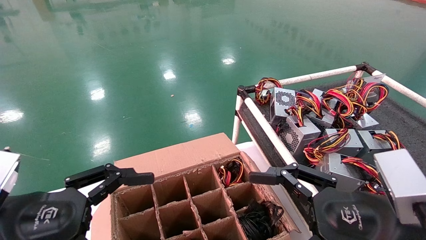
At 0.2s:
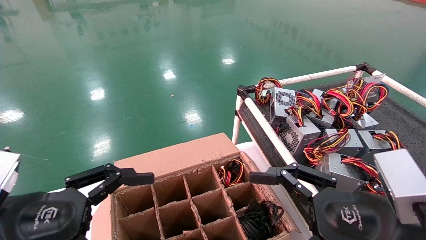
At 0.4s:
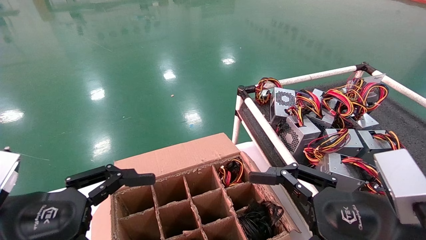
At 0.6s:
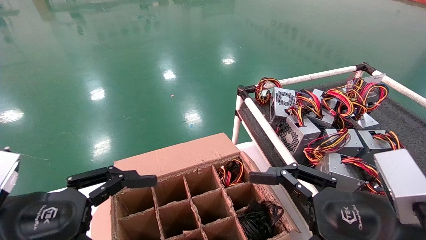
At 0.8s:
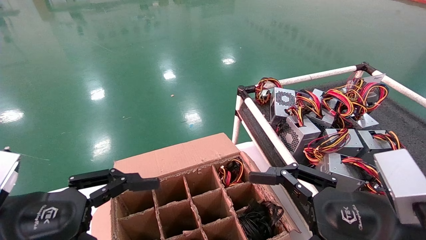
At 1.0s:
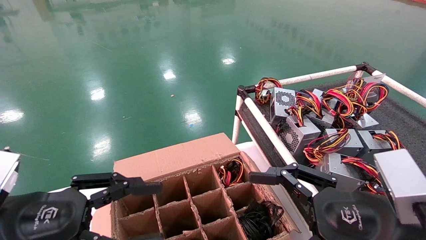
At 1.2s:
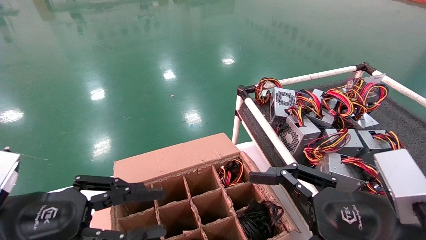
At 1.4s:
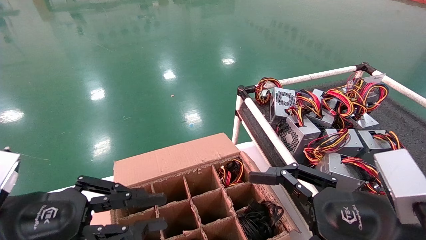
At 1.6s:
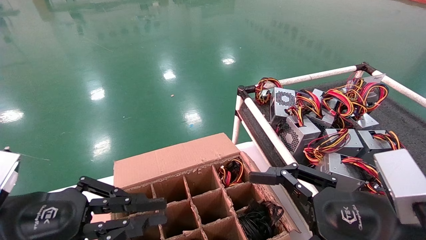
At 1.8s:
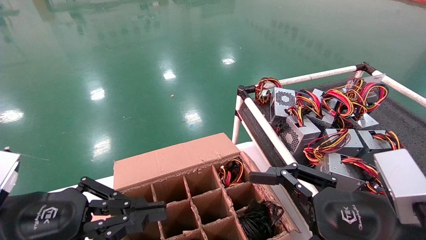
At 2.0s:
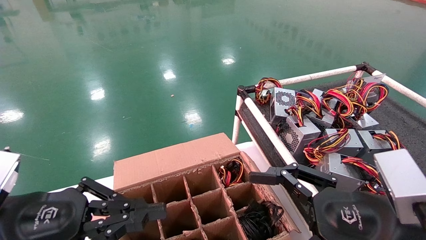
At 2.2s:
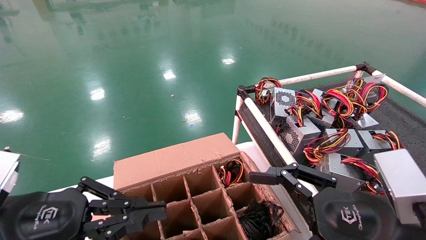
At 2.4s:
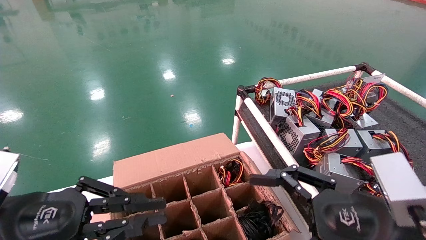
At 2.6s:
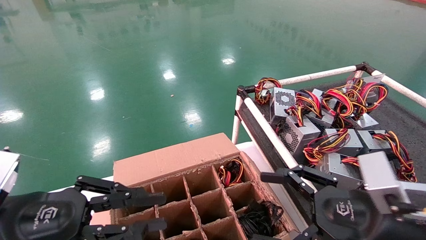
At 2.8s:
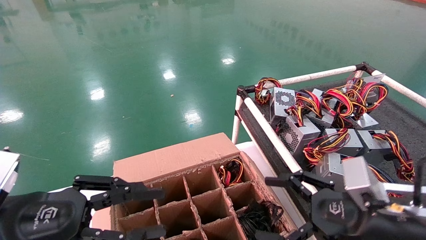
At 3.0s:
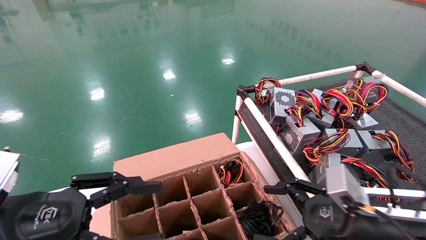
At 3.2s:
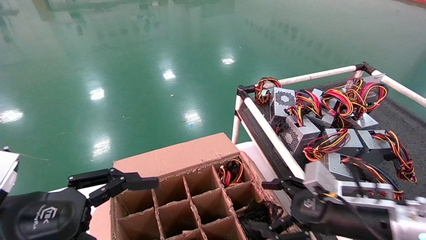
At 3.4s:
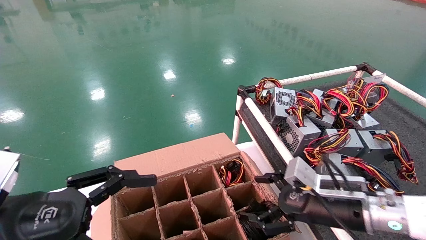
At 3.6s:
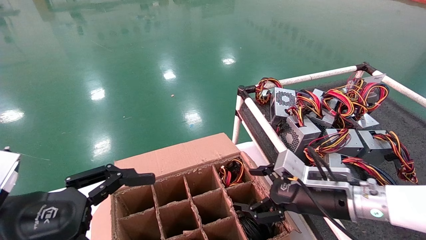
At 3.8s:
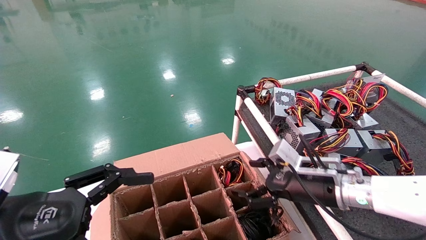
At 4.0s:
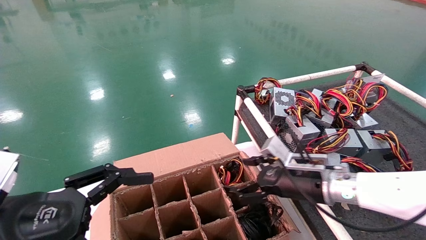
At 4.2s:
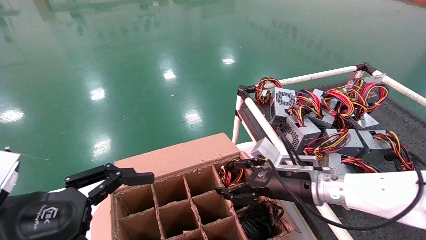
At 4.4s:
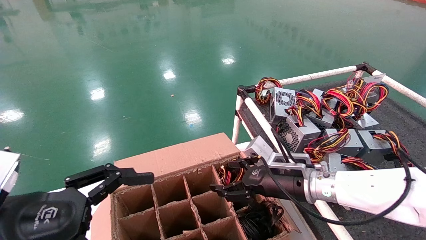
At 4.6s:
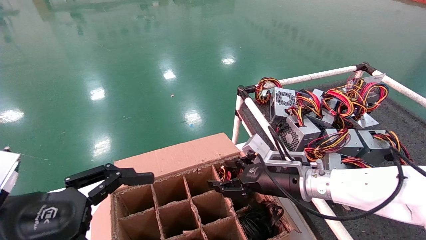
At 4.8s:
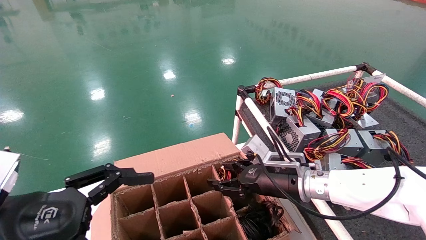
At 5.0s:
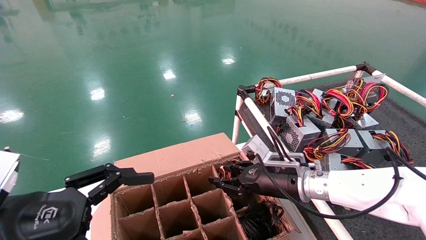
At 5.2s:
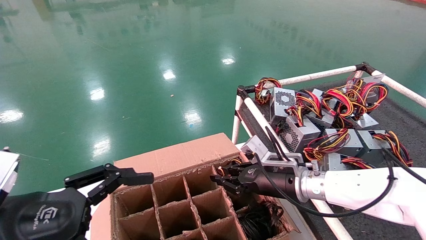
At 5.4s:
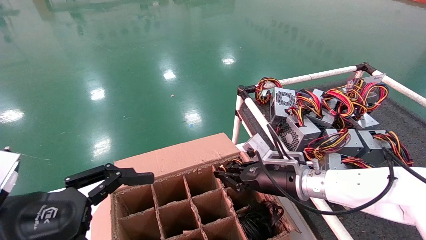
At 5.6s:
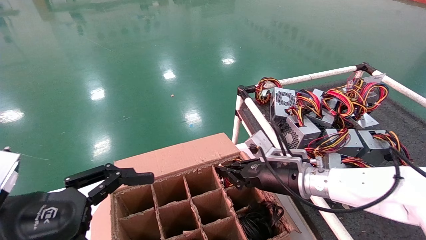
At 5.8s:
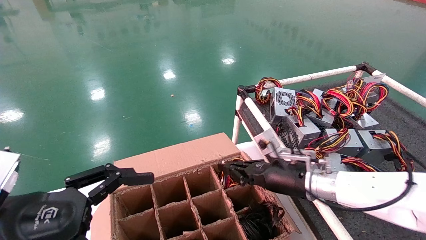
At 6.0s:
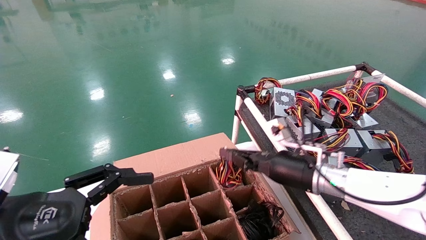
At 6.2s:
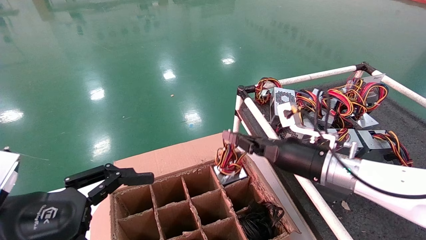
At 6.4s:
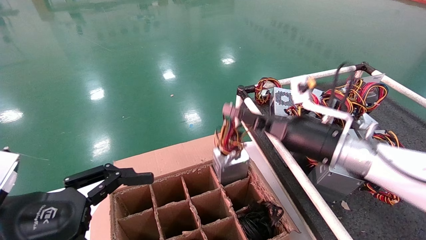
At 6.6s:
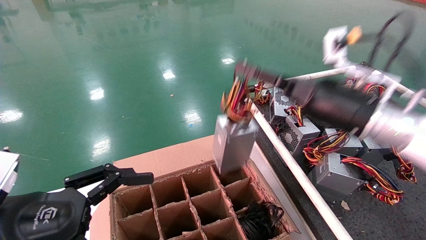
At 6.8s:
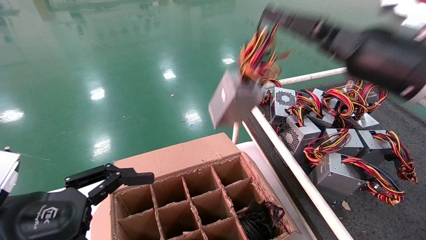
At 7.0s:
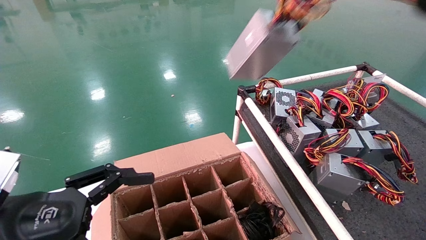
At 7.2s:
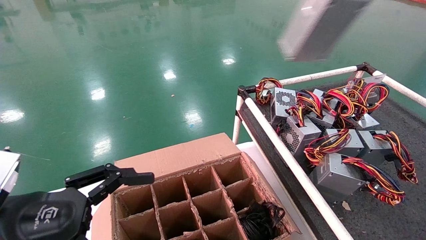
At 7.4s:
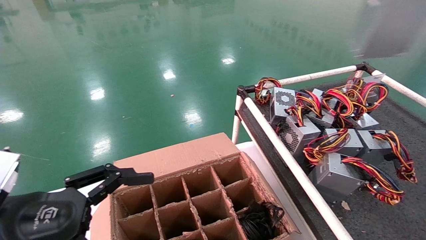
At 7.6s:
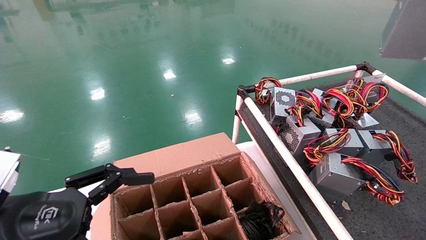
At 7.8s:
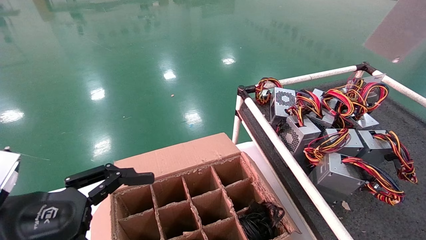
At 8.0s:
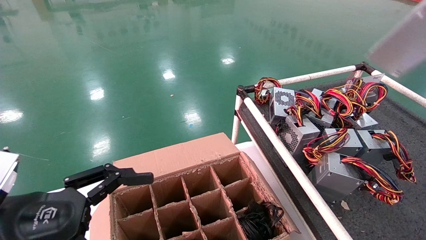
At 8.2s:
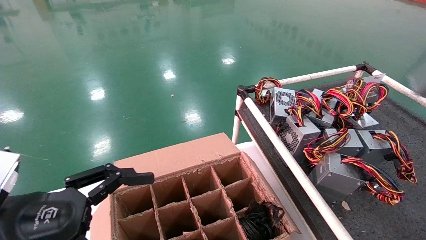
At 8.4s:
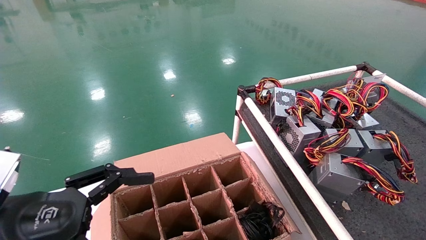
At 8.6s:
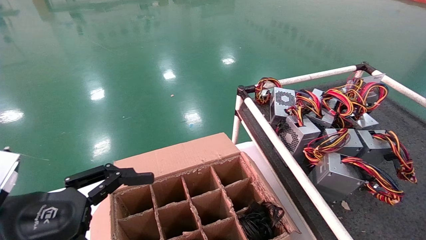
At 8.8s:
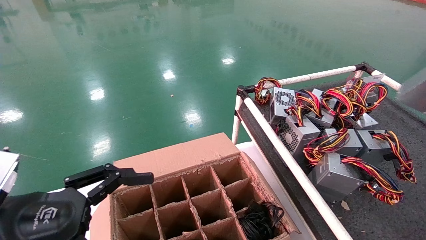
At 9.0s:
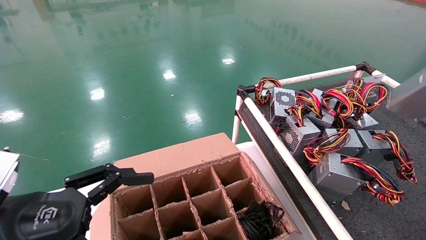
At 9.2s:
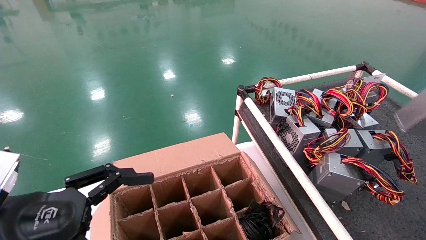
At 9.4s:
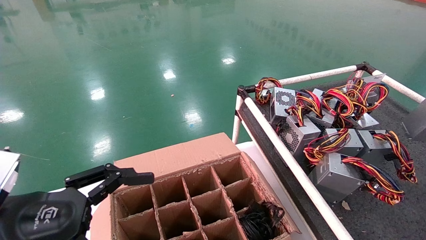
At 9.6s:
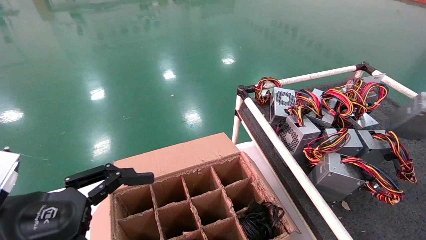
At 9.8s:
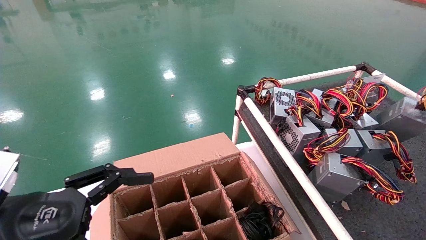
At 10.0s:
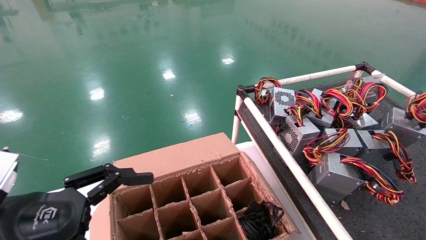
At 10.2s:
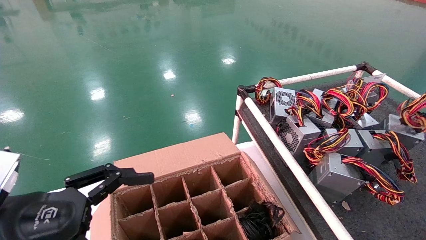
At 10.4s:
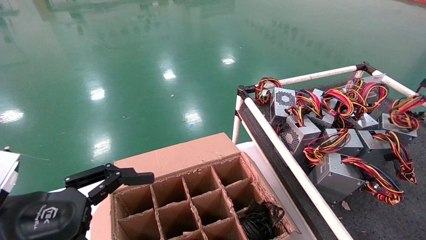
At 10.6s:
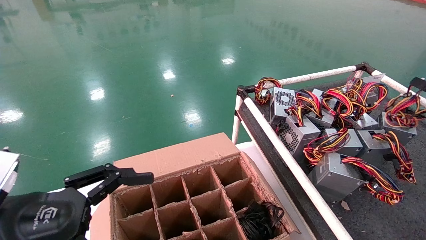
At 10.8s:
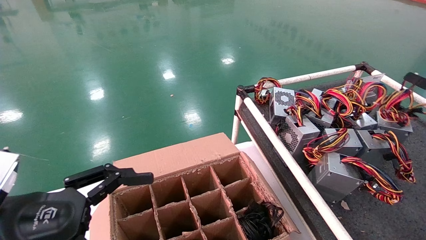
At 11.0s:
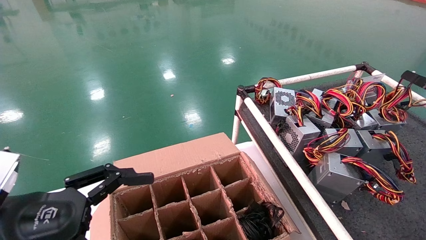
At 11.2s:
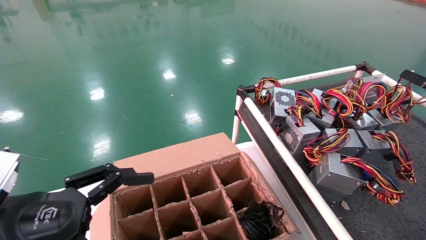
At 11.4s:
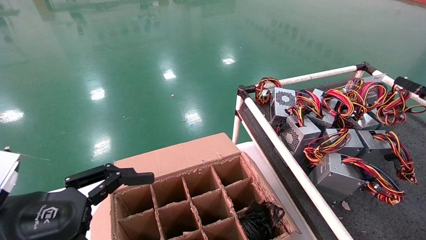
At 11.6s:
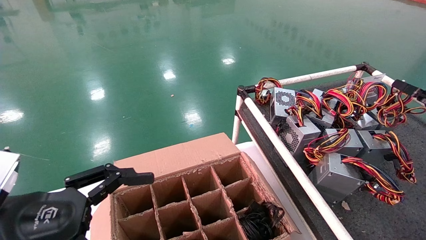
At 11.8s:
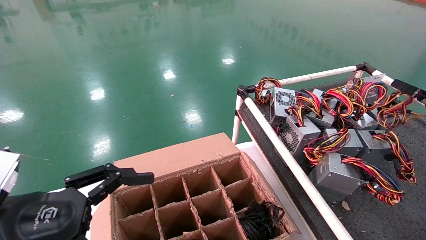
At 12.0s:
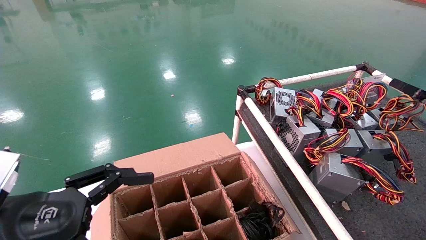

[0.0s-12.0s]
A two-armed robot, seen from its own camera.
Step, 2.8s to 5.6s: Grab and lift the power supply from the large box.
0.0s to 1.6s: The left gripper closes up.
1.6s to 3.0s: The right gripper travels forward by roughly 10 cm.
3.0s to 4.4s: The right gripper heads forward and to the left, covering some 15 cm. Meanwhile the left gripper opens up.
4.4s to 6.0s: The right gripper closes its fingers.
6.0s to 7.6s: The right gripper shifts roughly 40 cm upward, to the right and backward.
7.6s to 9.0s: The right gripper travels to the right and downward by roughly 20 cm.
9.0s to 10.4s: The right gripper moves forward and downward, approximately 15 cm.
10.4s to 12.0s: The right gripper ends up approximately 5 cm from where it was.

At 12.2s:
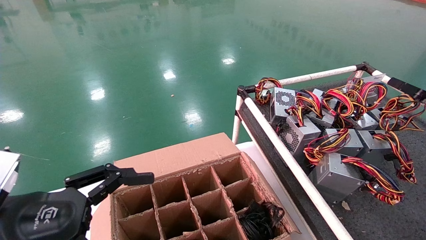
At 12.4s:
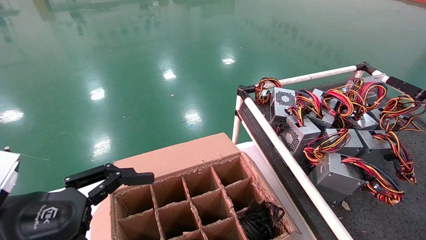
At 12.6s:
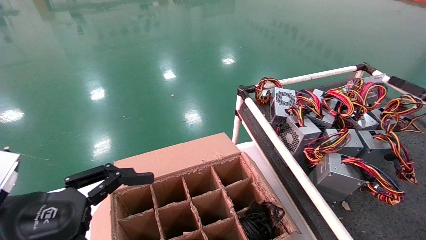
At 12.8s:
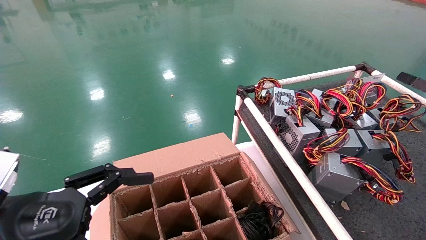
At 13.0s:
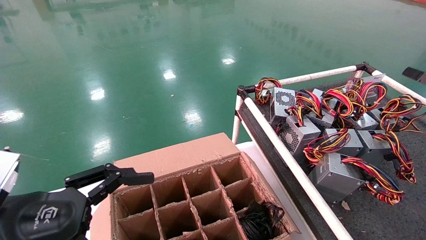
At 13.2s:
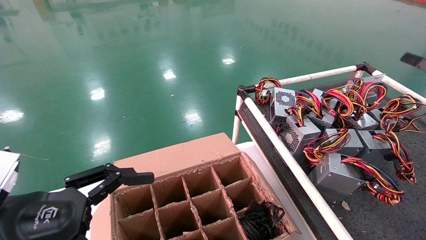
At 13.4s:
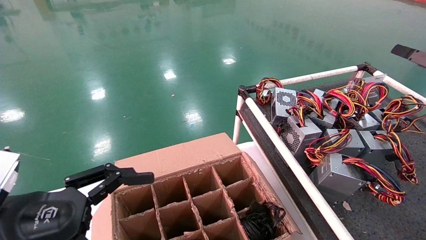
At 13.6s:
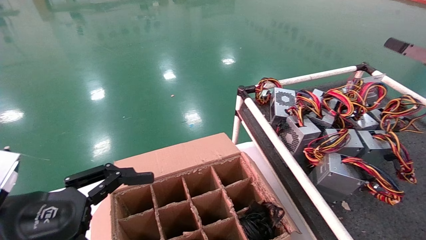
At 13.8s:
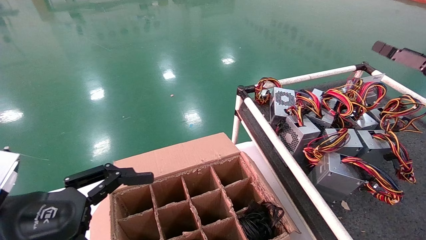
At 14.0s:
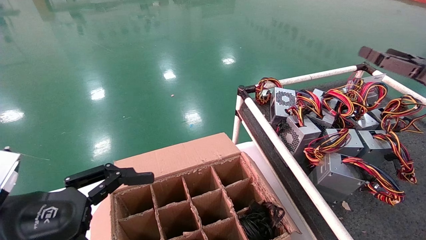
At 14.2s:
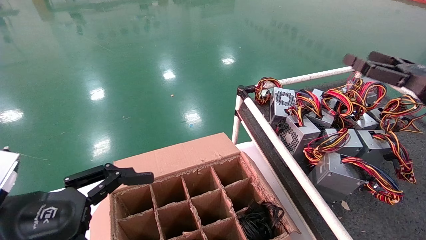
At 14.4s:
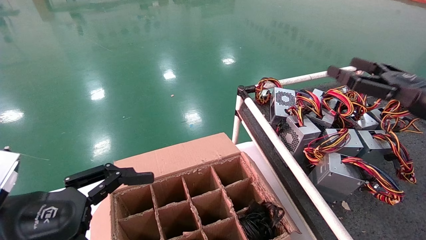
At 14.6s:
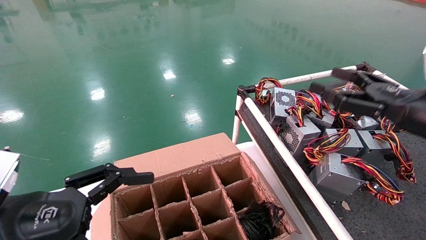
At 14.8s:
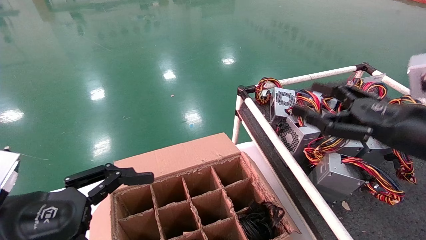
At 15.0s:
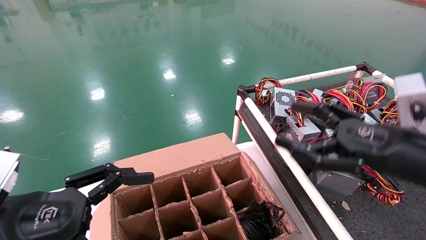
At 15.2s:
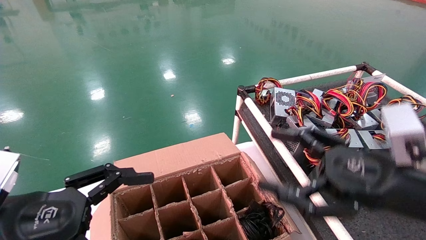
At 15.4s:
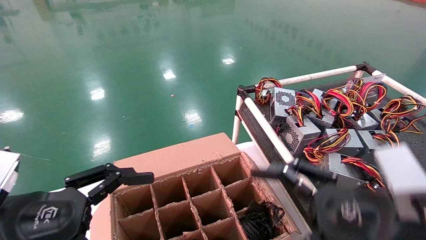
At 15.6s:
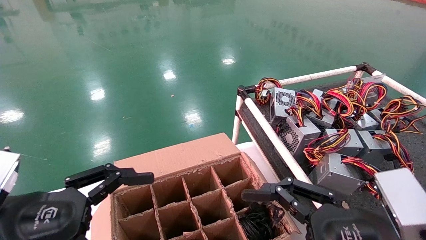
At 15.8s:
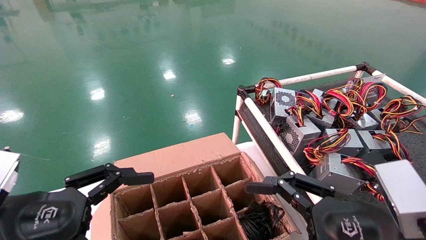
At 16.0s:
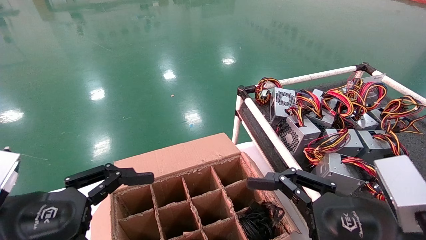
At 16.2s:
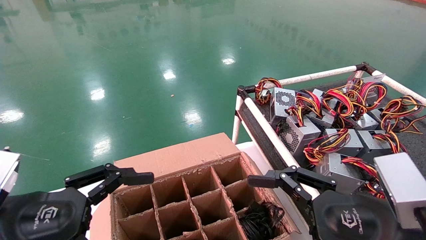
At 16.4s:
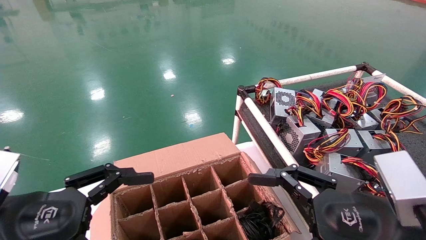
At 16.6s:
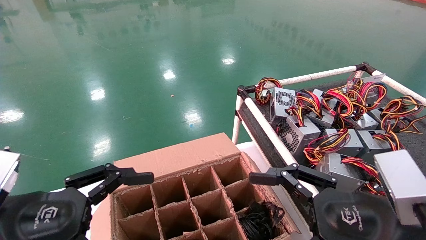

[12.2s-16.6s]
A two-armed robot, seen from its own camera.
12.2s to 13.6s: The right gripper shifts some 5 cm upward, and opens up.
13.6s to 15.2s: The right gripper heads to the left, backward and downward, covering some 25 cm.
15.2s to 16.6s: The grippers stay close to where they were, moving slightly.
